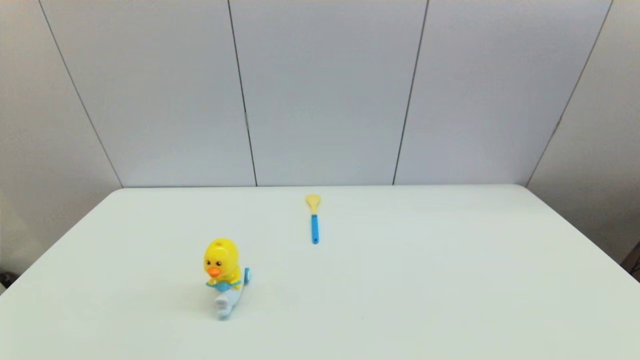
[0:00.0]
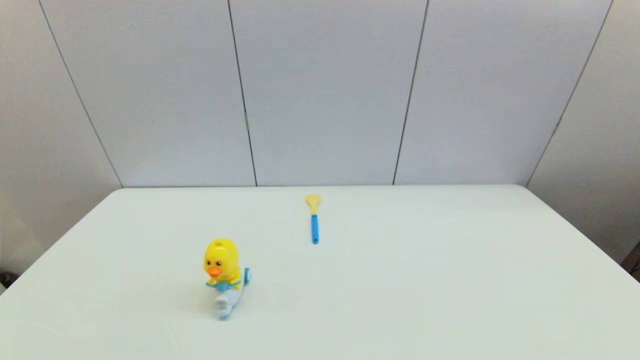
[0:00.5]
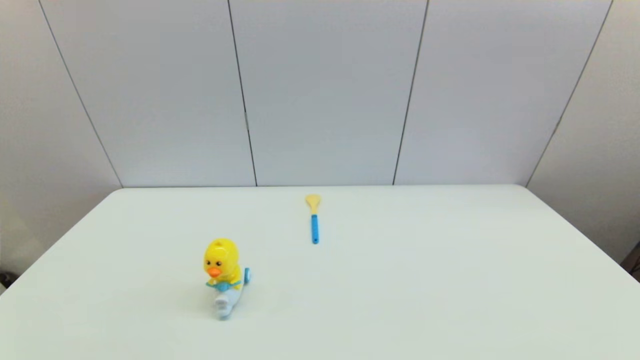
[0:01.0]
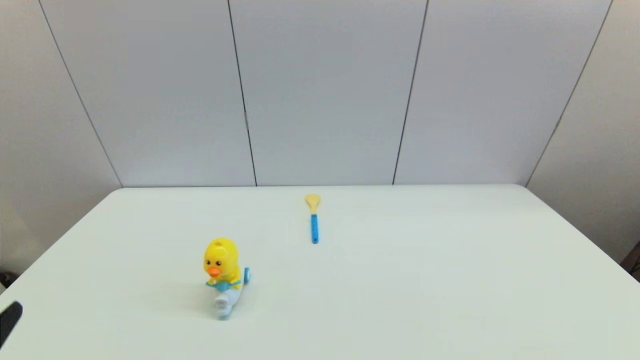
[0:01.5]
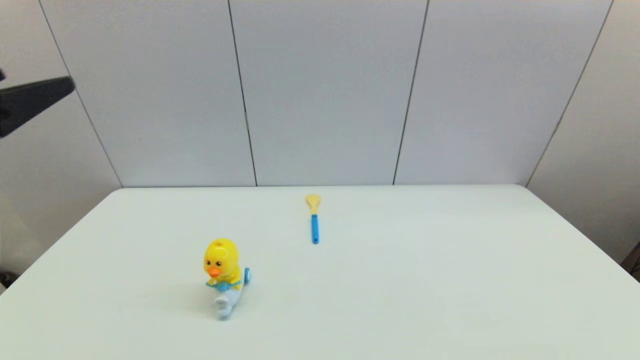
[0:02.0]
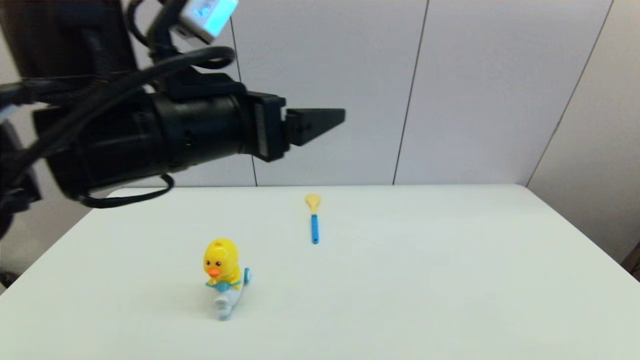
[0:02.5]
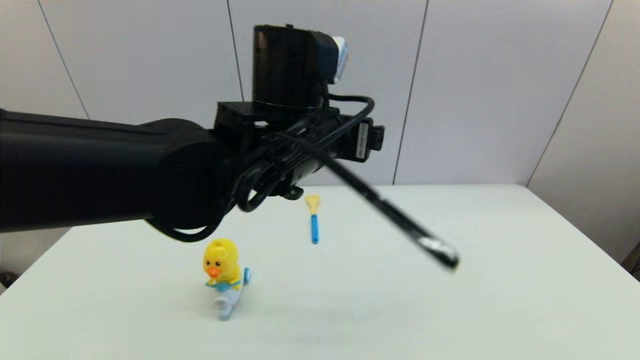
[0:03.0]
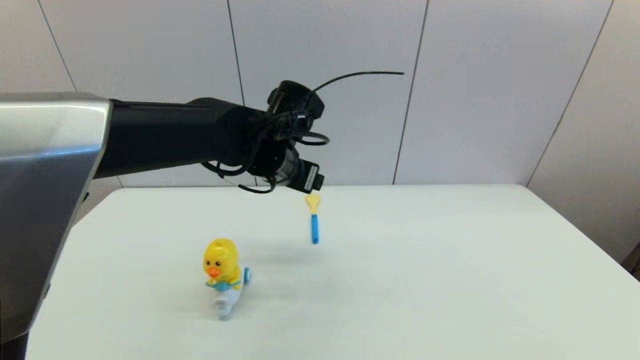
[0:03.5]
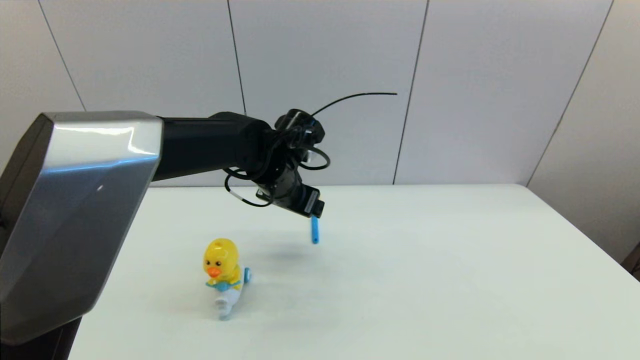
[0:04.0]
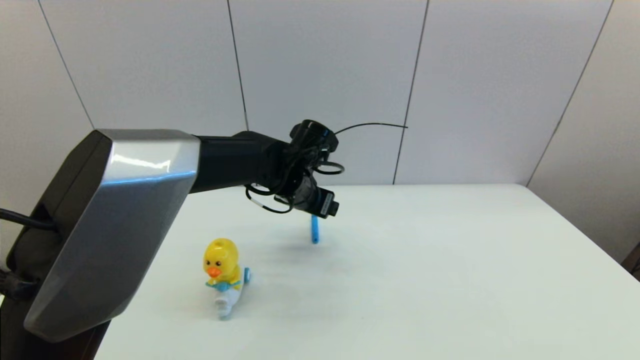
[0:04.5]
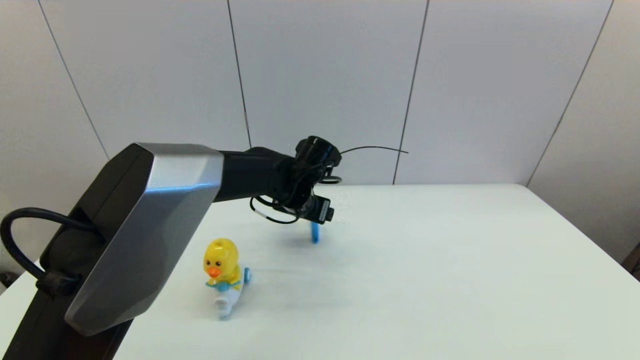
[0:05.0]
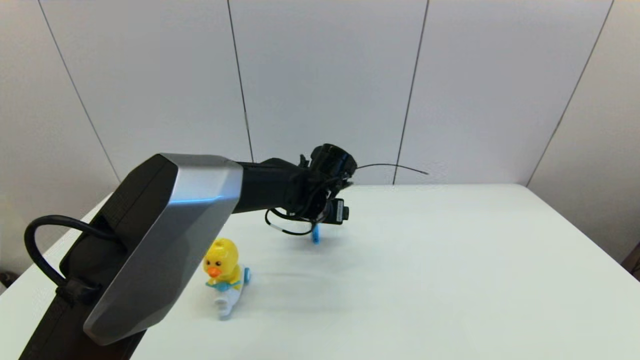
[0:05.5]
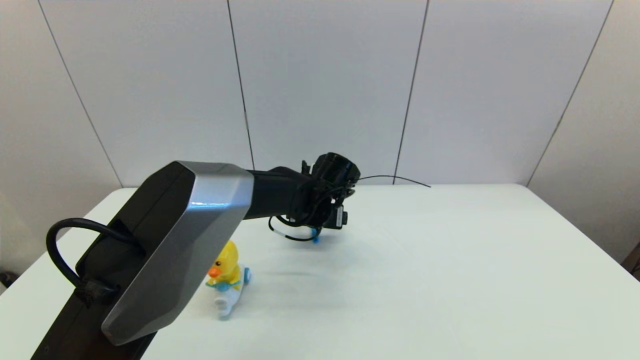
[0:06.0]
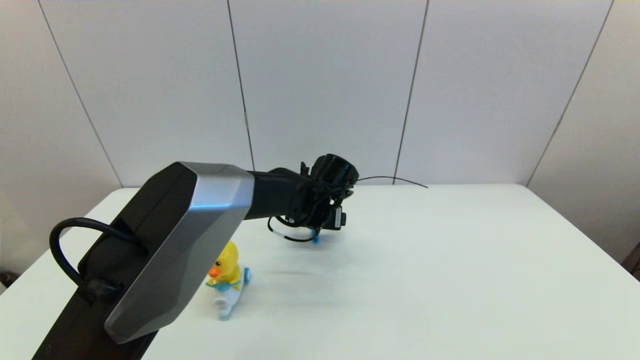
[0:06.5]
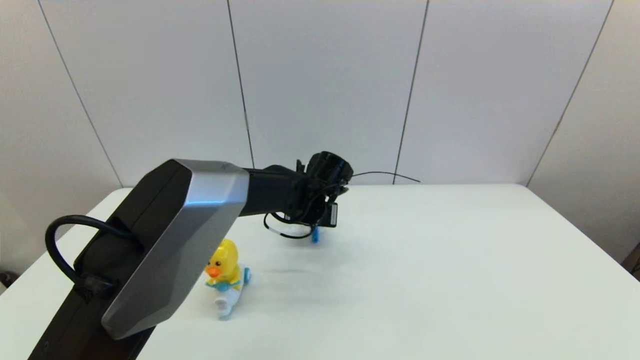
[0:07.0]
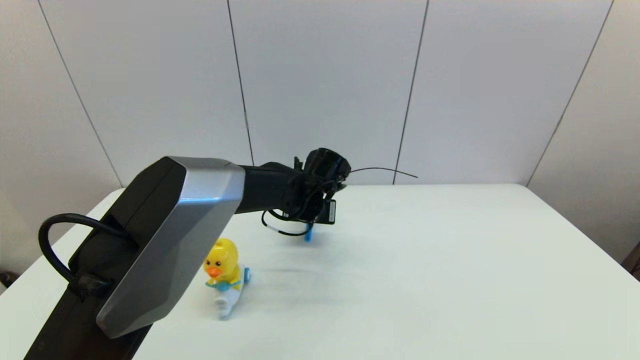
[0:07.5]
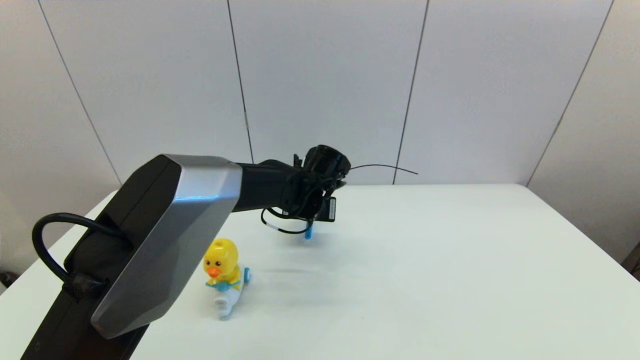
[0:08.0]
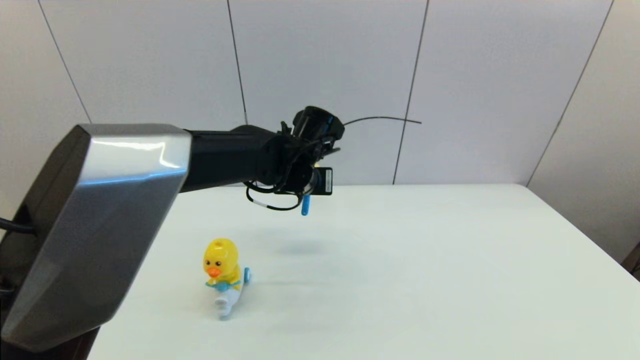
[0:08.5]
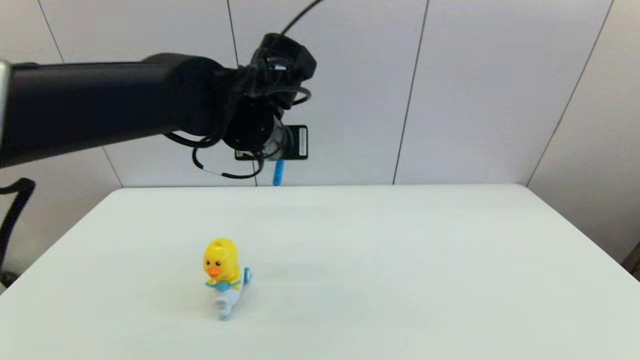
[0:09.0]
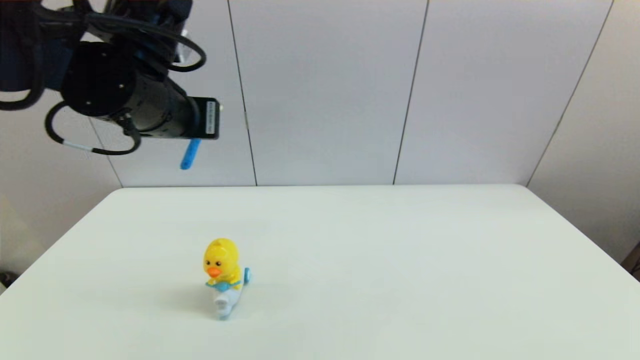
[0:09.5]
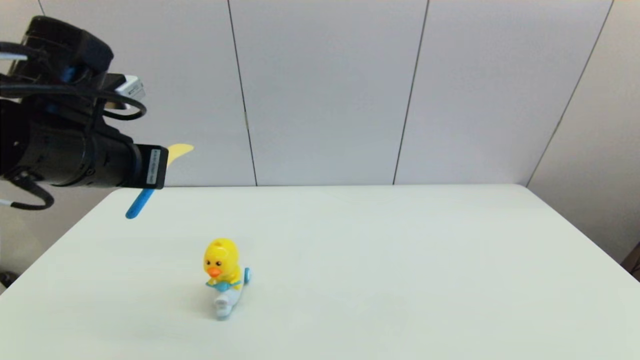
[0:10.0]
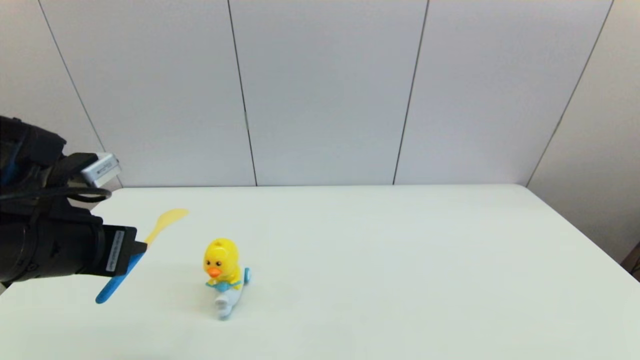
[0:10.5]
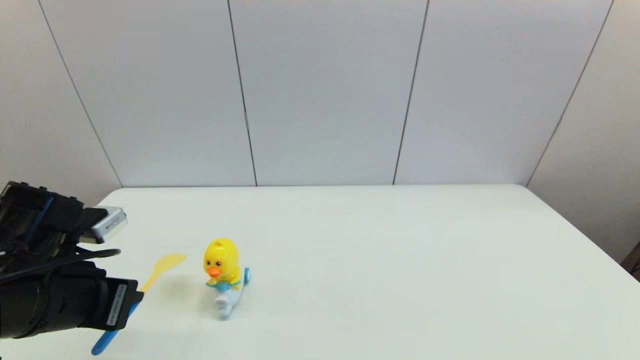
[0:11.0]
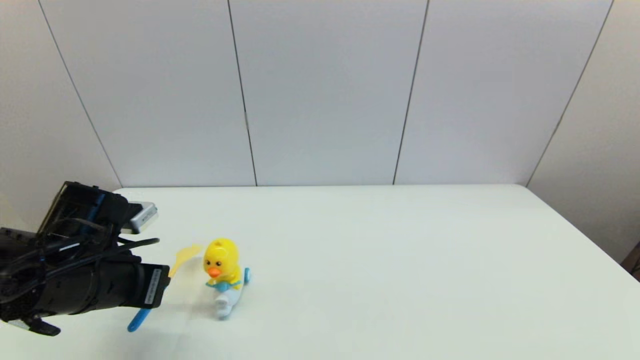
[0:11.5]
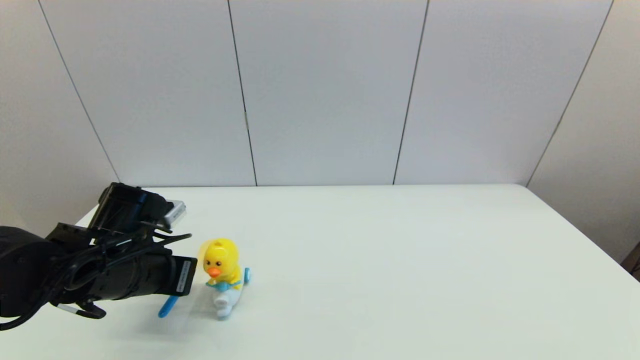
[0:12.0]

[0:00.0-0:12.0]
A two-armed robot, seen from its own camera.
Step, 0:01.5 to 0:07.5: Grasp the spoon with left gripper.
0:00.0 to 0:02.0: The left gripper goes some 30 cm upward and forward.
0:02.0 to 0:04.0: The left gripper is displaced forward, to the right and downward by about 35 cm.
0:04.0 to 0:06.0: The left gripper goes roughly 10 cm downward and to the right.
0:06.0 to 0:08.0: The left gripper closes.
0:08.0 to 0:10.0: The left gripper shifts about 30 cm to the left, upward and backward.
0:10.0 to 0:12.0: The left gripper travels downward by some 15 cm.

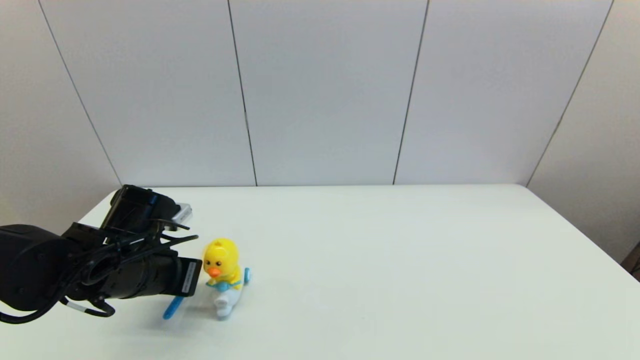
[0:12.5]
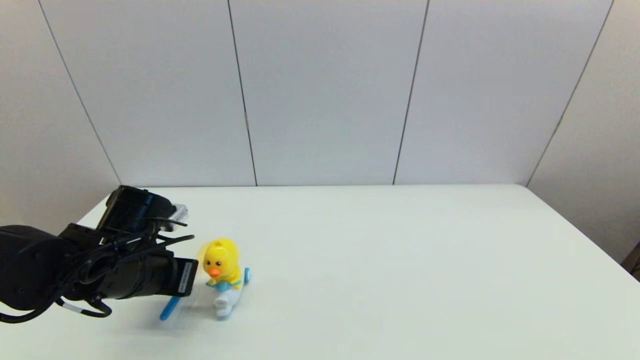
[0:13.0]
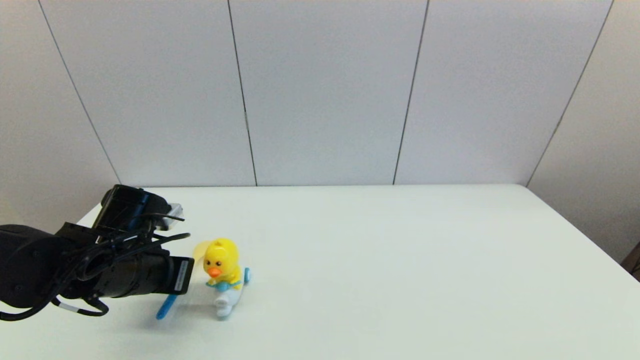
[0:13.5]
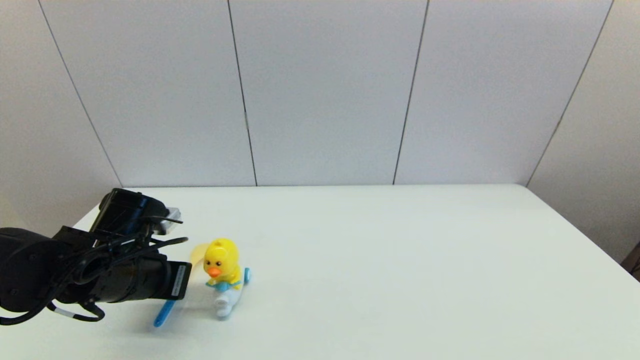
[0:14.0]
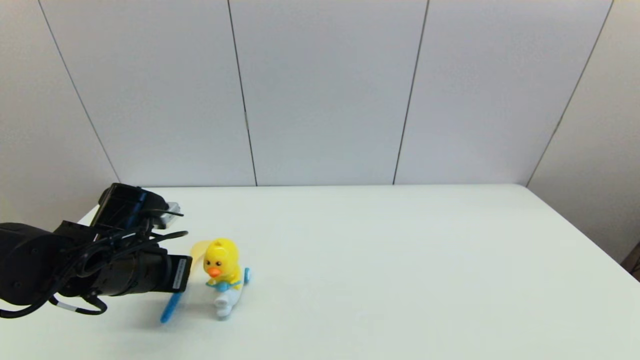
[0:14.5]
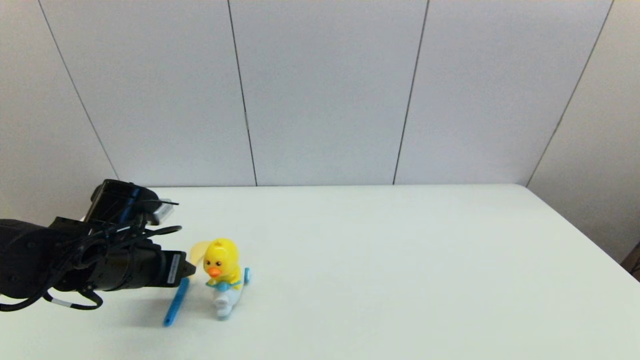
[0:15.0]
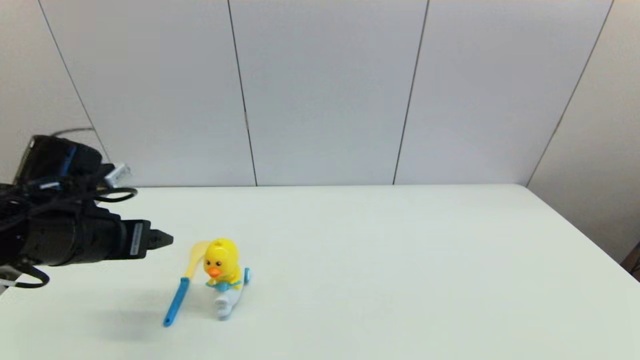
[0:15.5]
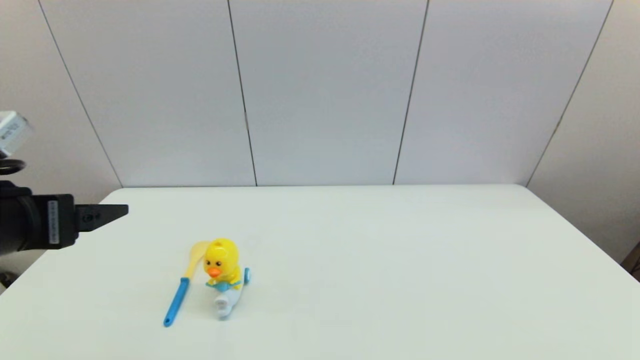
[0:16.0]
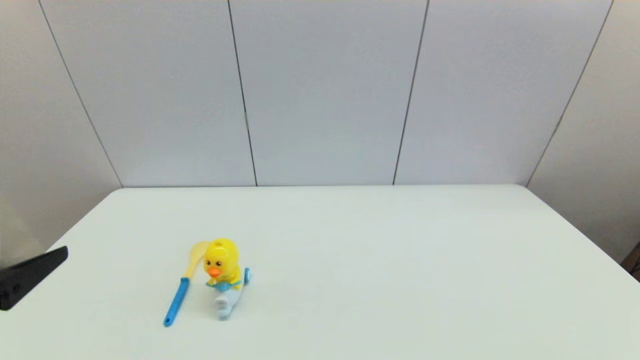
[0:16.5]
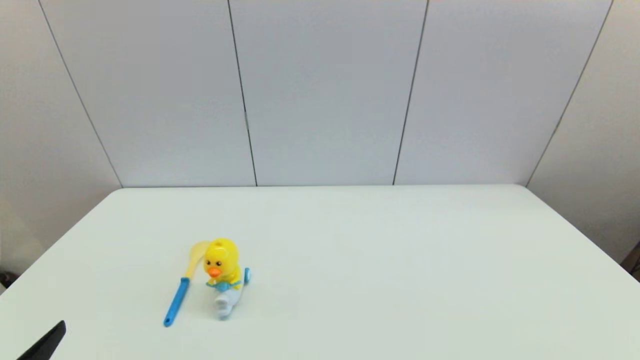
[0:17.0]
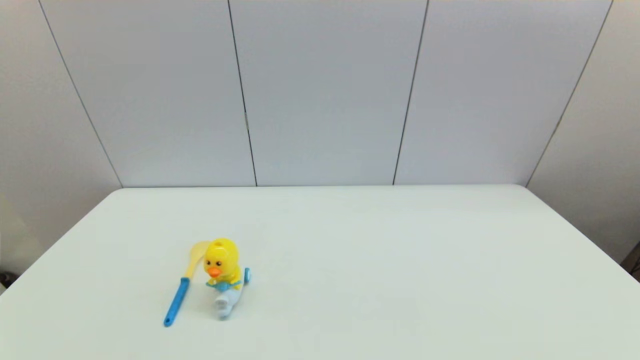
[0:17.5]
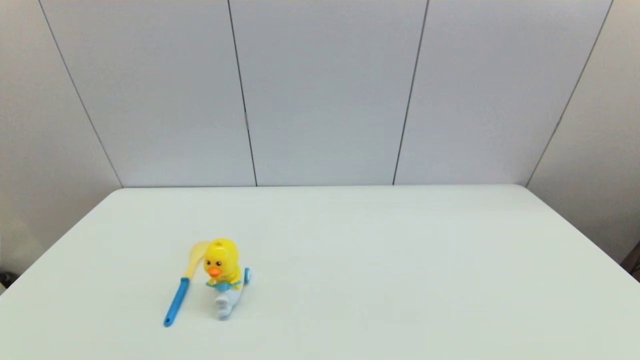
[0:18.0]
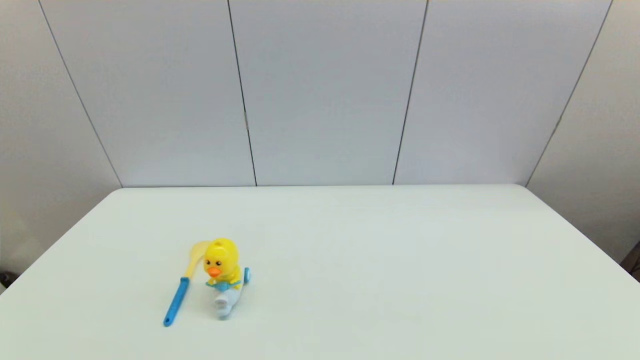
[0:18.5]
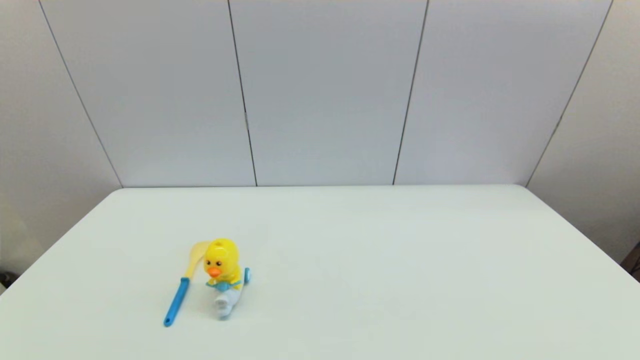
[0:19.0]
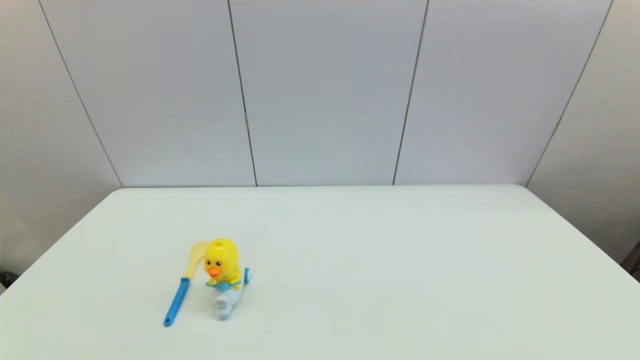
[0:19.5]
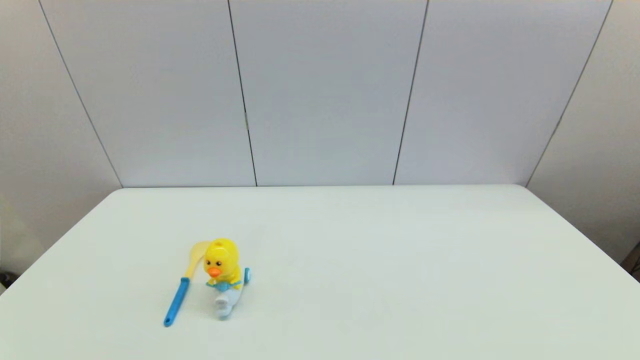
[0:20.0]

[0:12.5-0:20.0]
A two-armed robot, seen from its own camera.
Step, 0:12.5 to 0:15.0: Place the spoon on the table with left gripper.
0:12.5 to 0:14.5: The grippers stay close to where they were, moving slightly.
0:14.5 to 0:16.5: The left gripper is displaced backward and upward by about 20 cm, and opens its fingers.
0:16.5 to 0:18.0: The left gripper shifts approximately 15 cm downward and backward.
